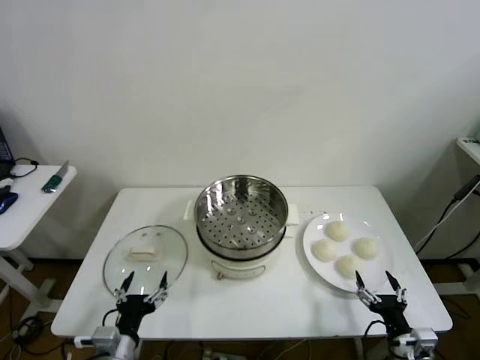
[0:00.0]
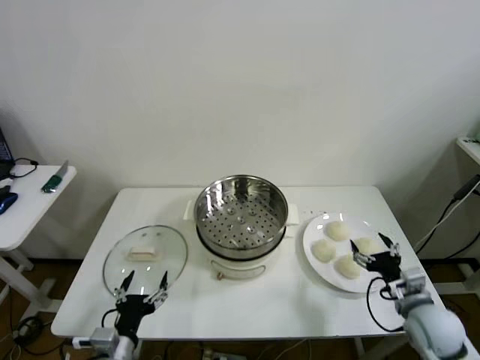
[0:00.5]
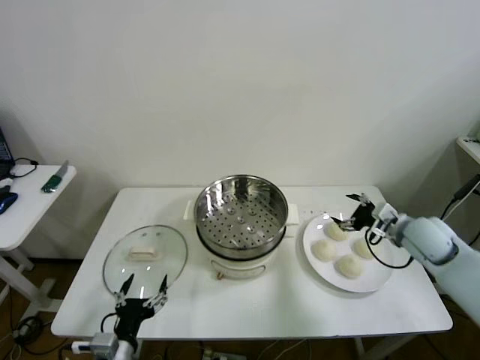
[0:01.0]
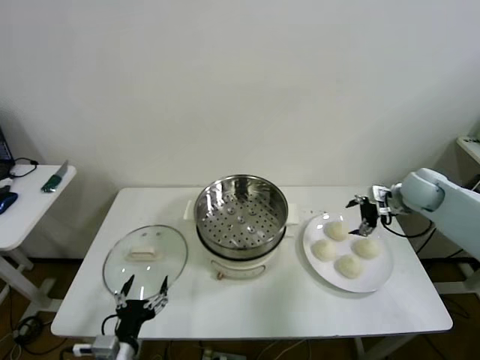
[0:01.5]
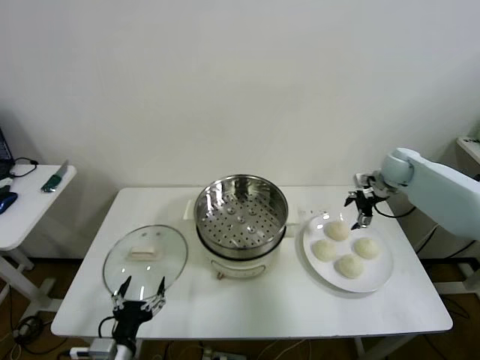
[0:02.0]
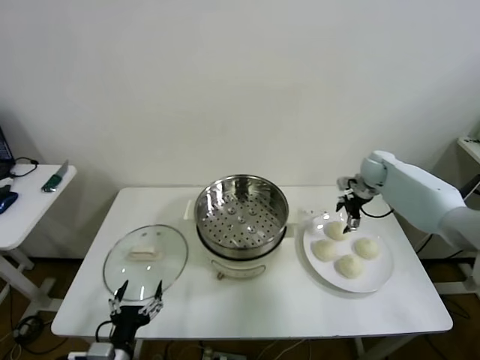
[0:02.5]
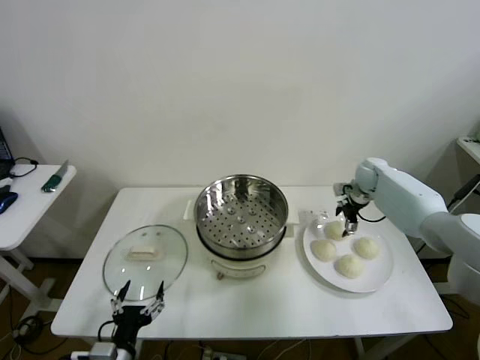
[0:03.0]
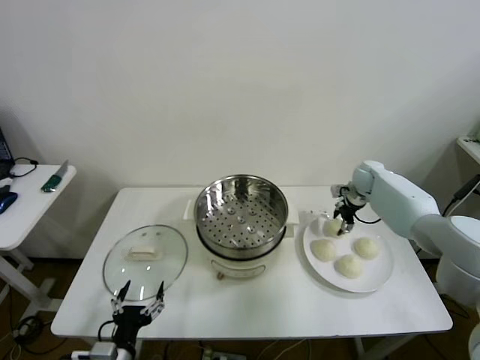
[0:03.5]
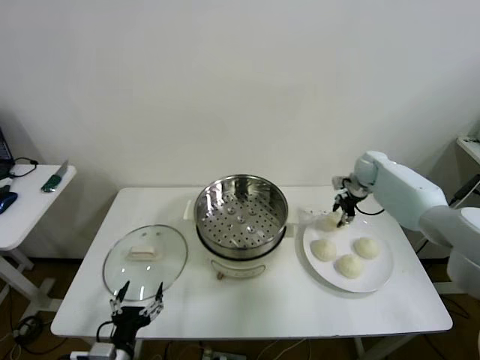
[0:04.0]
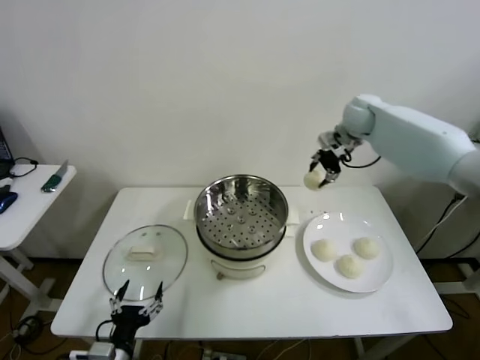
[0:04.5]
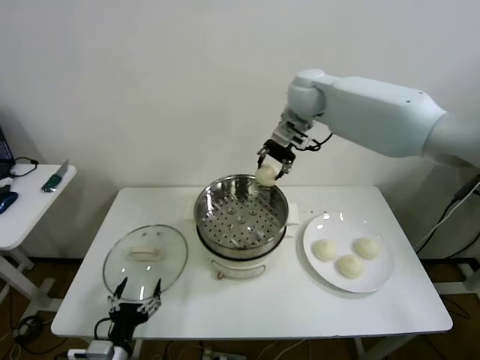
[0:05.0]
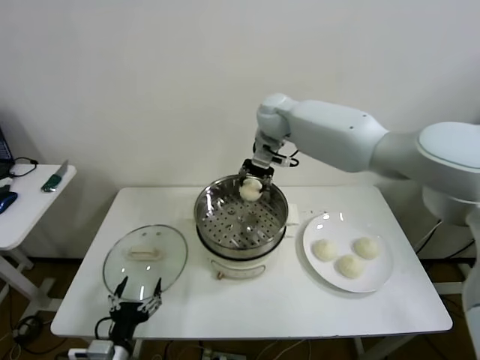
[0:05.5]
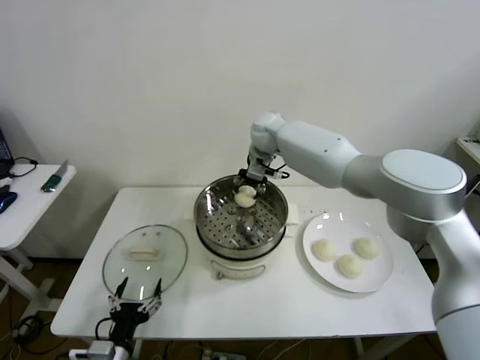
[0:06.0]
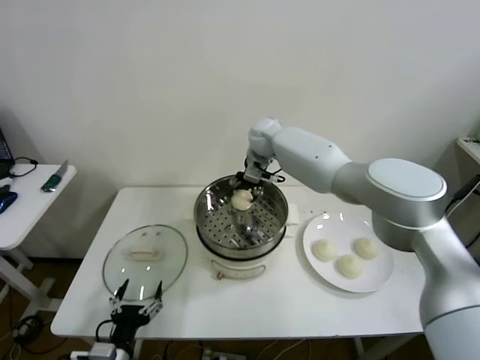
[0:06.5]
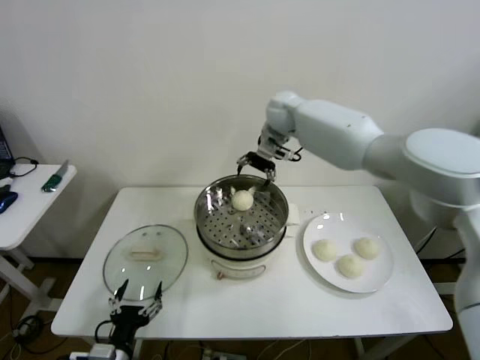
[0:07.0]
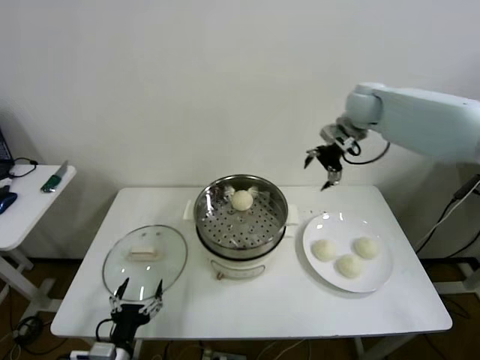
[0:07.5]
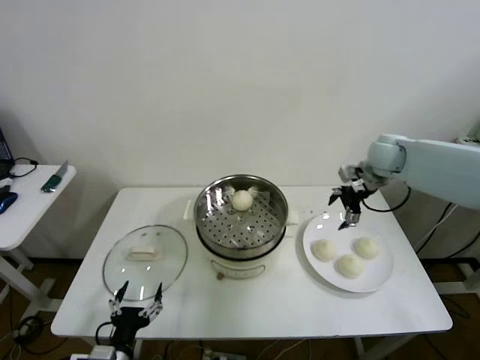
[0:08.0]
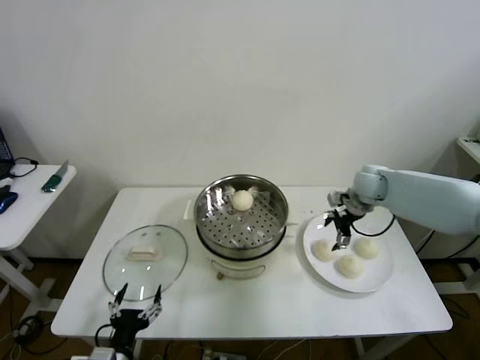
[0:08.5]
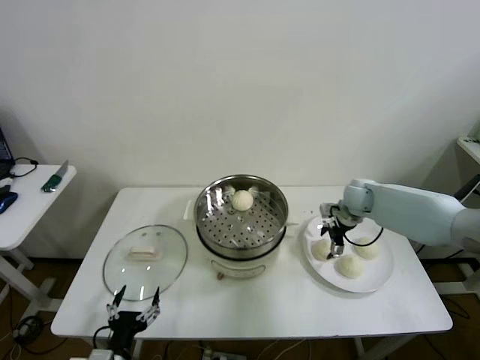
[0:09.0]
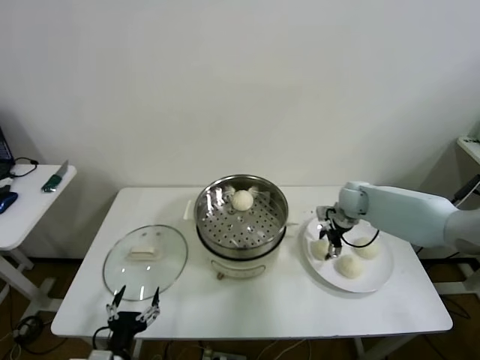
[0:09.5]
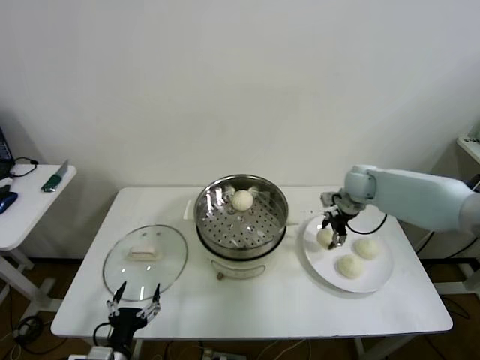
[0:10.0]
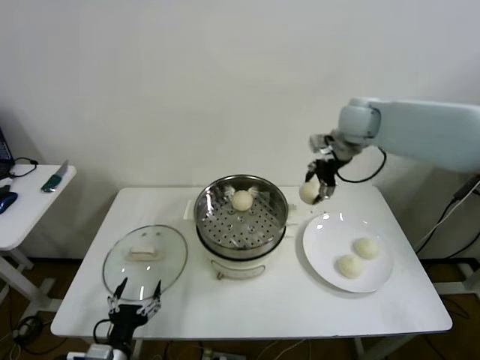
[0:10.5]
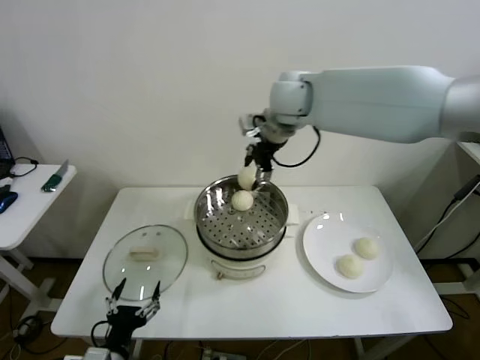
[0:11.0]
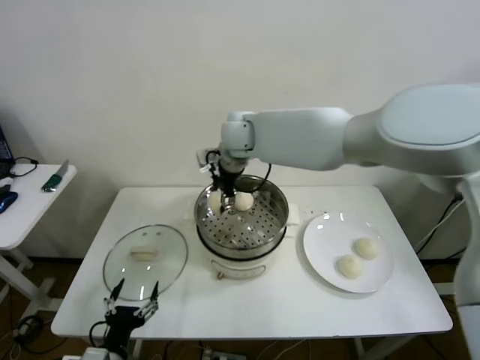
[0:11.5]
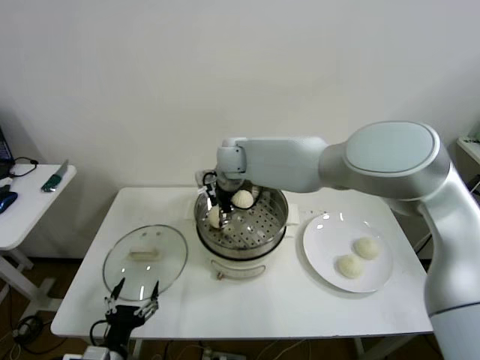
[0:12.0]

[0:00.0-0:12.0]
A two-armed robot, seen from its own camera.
Step, 0:00.0 to 0:03.5: Grasp the baozi in the plate with right gripper.
Step, 0:04.0 to 0:06.0: Place the baozi on the steamer with right gripper.
Step, 0:07.0 to 0:09.5: Grasp the baozi in the plate with right gripper.
0:02.0 to 0:04.0: The right gripper closes up.
0:04.0 to 0:06.0: The right gripper heads to the left, covering some 30 cm.
0:06.0 to 0:08.0: The right gripper travels to the right by some 30 cm, and opens up.
0:08.0 to 0:10.0: The right gripper closes up.
0:10.0 to 0:12.0: The right gripper is displaced to the left by roughly 35 cm.

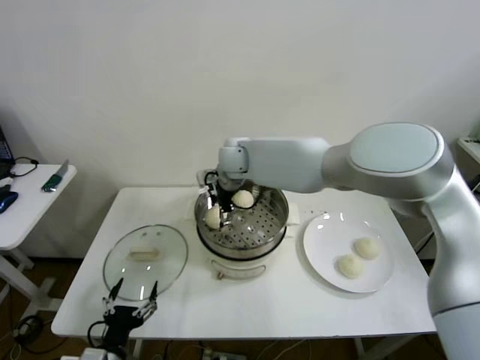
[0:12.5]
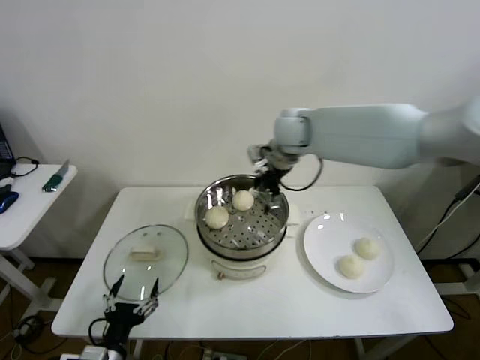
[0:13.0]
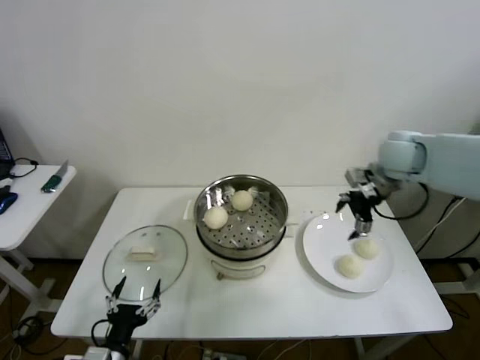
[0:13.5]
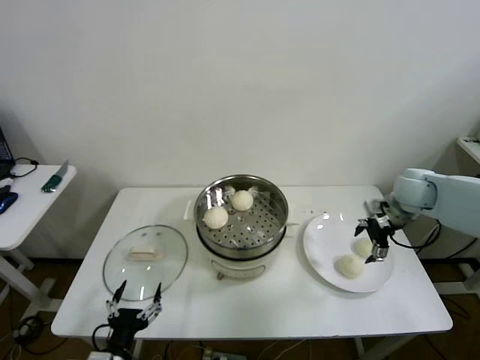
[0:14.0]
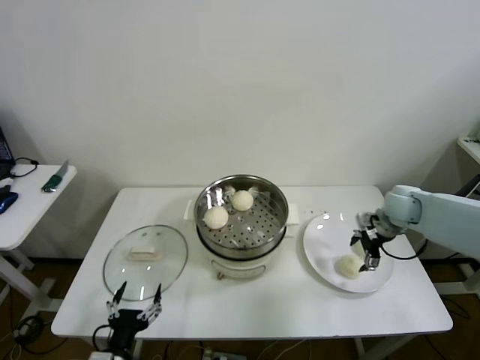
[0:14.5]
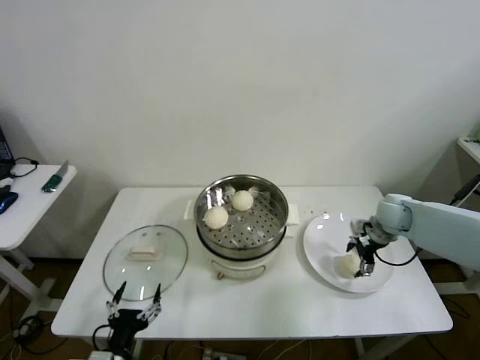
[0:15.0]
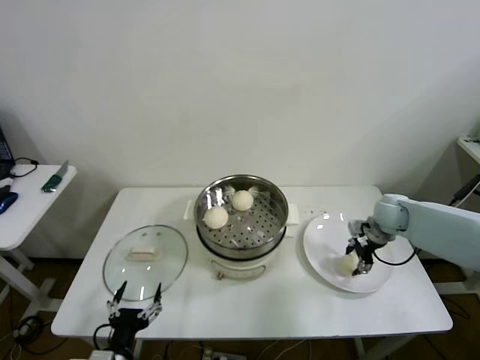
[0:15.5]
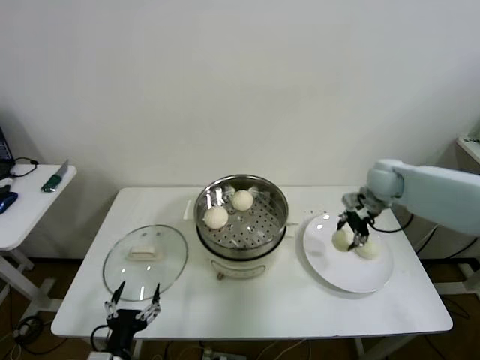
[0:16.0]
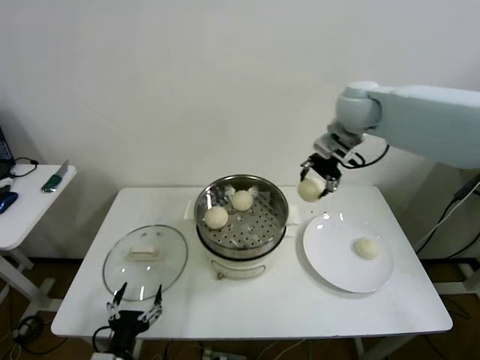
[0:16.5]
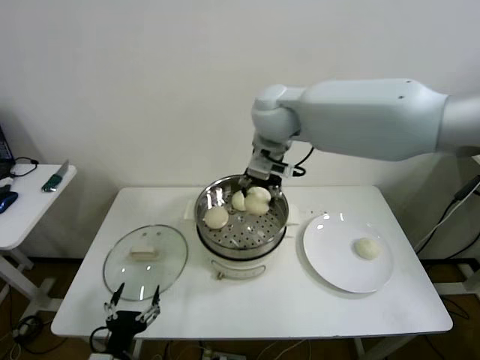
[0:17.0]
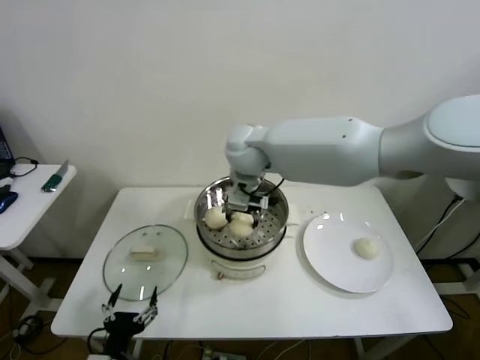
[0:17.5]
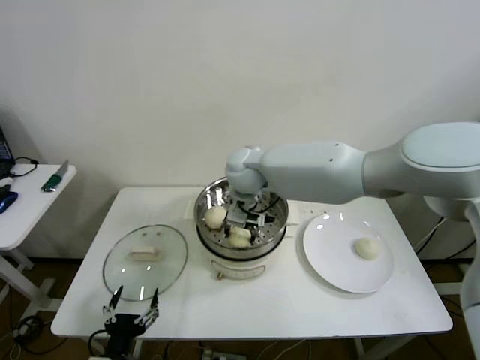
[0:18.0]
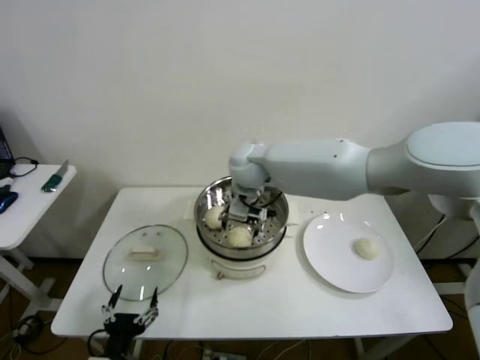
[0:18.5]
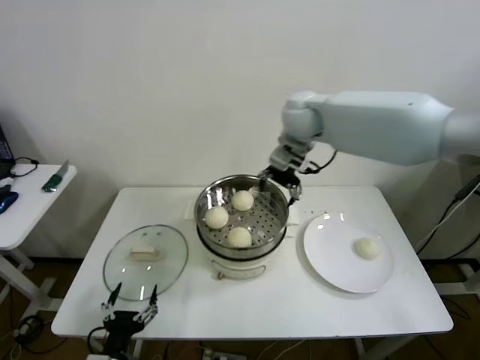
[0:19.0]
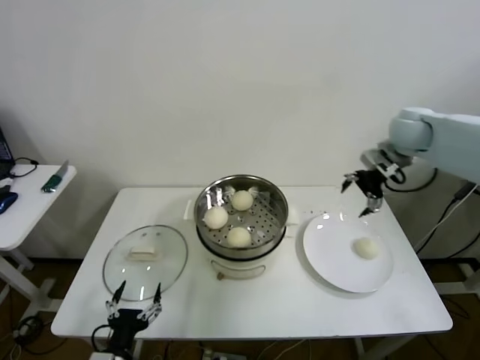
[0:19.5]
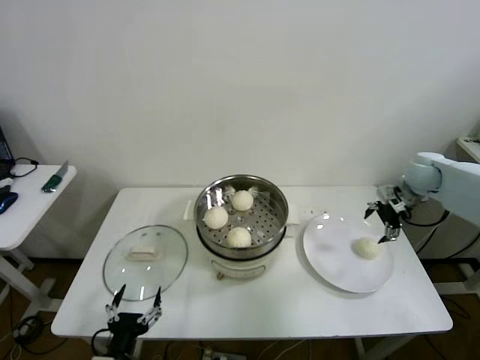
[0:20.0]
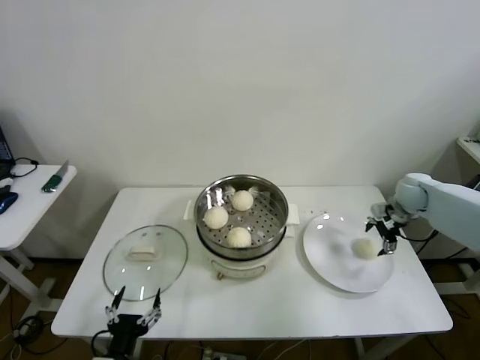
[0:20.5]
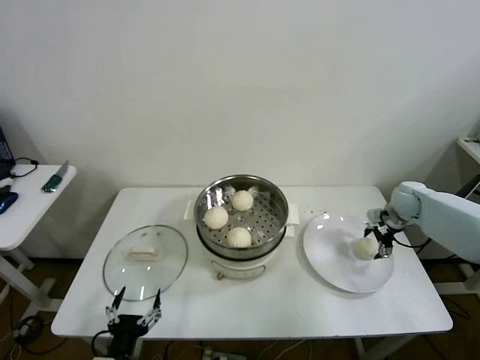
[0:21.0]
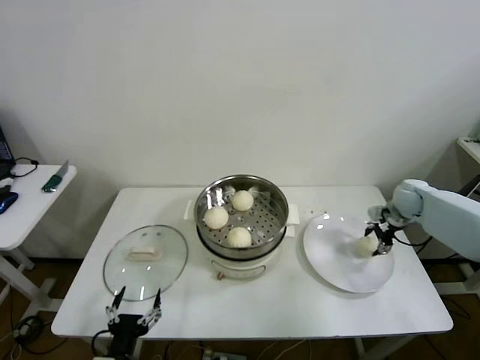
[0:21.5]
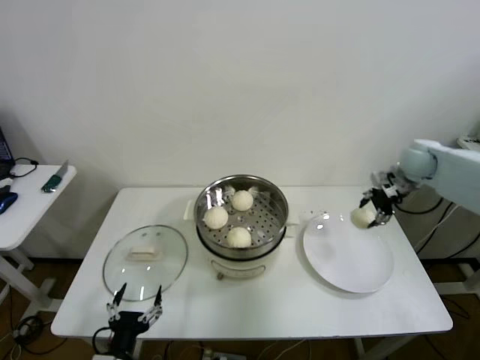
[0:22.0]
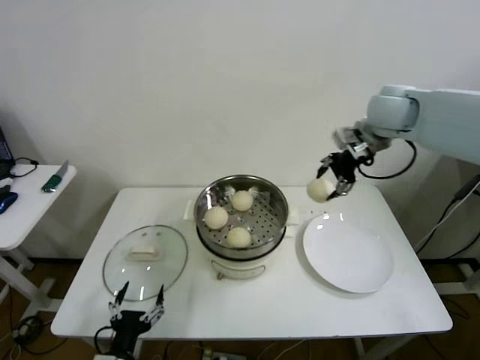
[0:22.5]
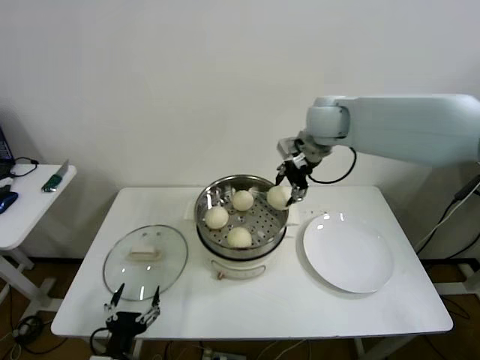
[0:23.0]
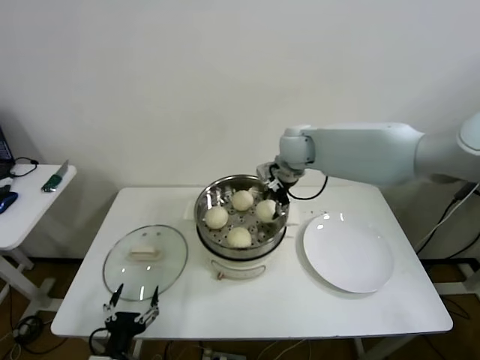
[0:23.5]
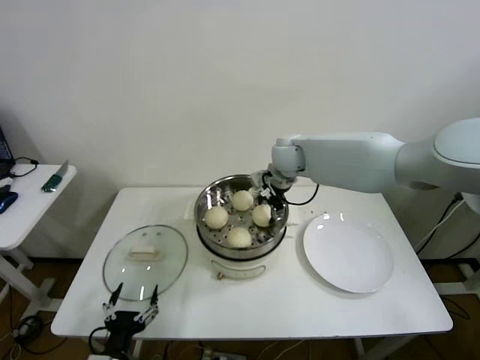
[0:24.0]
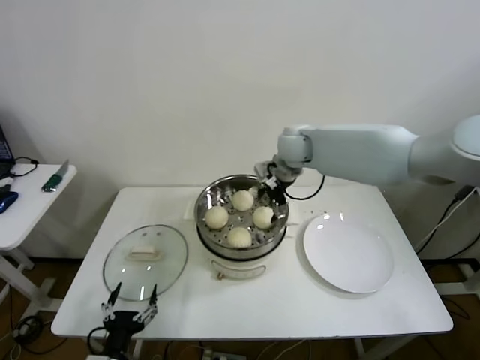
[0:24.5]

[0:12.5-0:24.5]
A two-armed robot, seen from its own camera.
Step, 0:12.5 to 0:15.0: Grasp the baozi in the plate with right gripper.
Step, 0:15.5 to 0:18.0: Place the baozi on the steamer with right gripper.
Step, 0:18.5 to 0:21.0: Grasp the baozi in the plate with right gripper.
Step, 0:21.5 to 0:24.0: Place the baozi on the steamer with right gripper.
0:12.5 to 0:14.5: The right gripper shifts approximately 40 cm to the right.
0:14.5 to 0:16.5: The right gripper travels upward and to the left by about 30 cm, and closes.
0:16.5 to 0:18.5: The right gripper heads to the left and downward, covering some 25 cm, and opens its fingers.
0:18.5 to 0:20.5: The right gripper shifts approximately 40 cm to the right.
0:20.5 to 0:22.5: The right gripper travels upward and to the left by approximately 30 cm, and closes.
0:22.5 to 0:24.5: The right gripper goes approximately 20 cm to the left and downward, and opens up.

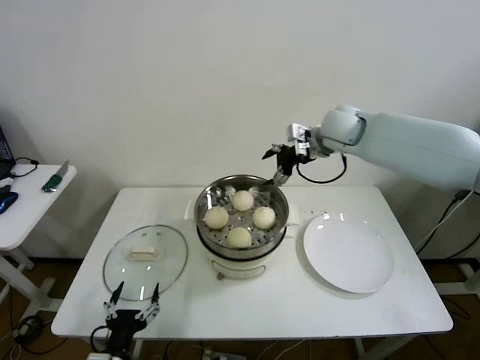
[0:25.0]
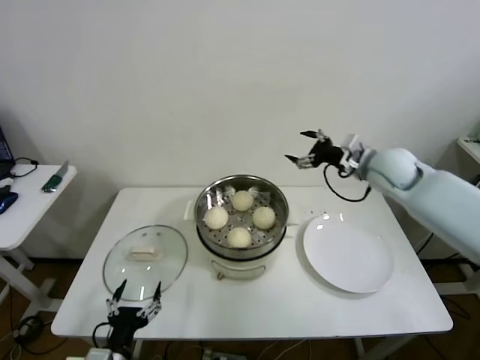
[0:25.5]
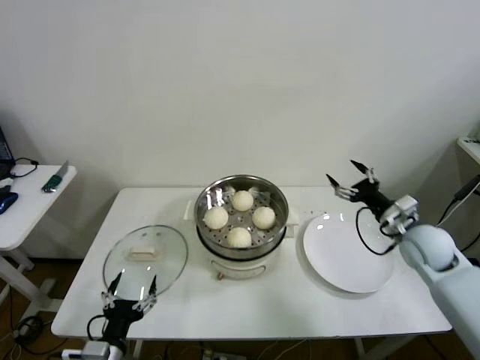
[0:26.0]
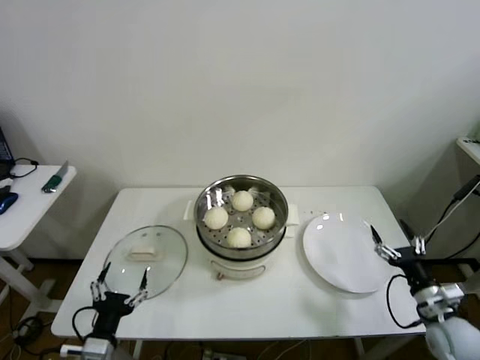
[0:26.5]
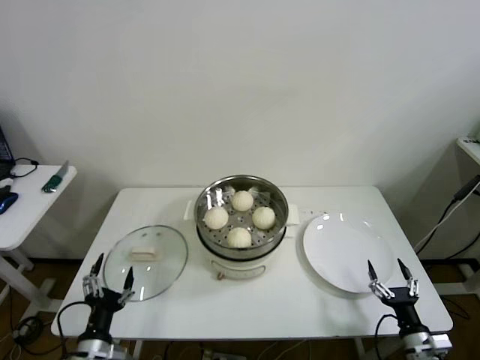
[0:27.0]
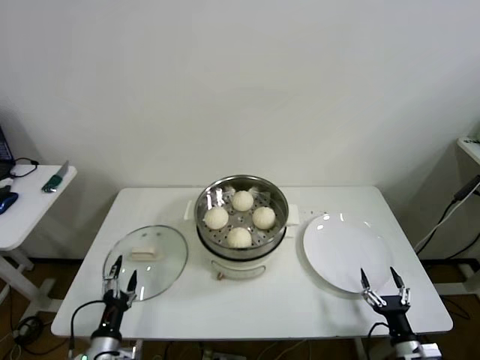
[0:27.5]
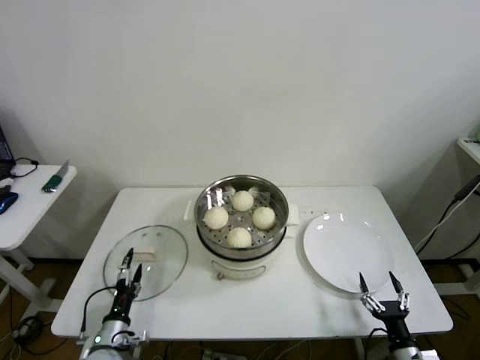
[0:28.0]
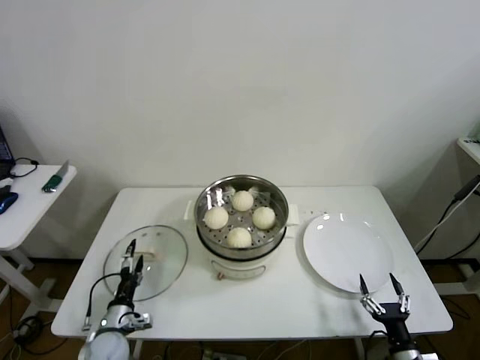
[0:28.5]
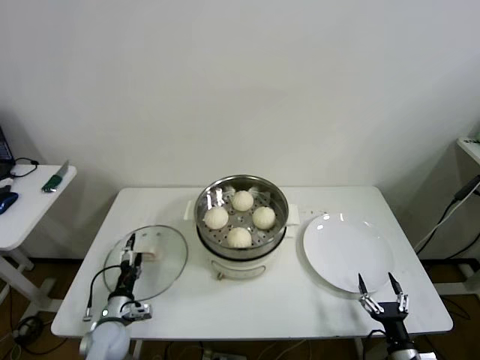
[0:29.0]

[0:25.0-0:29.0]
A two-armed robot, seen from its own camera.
0:25.0 to 0:27.0: The left gripper changes place by approximately 5 cm, while the right gripper moves downward, backward and to the right, some 60 cm.
0:27.0 to 0:29.0: The left gripper is displaced forward and downward by about 15 cm. Meanwhile the right gripper changes place by some 5 cm.
